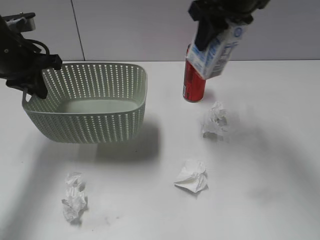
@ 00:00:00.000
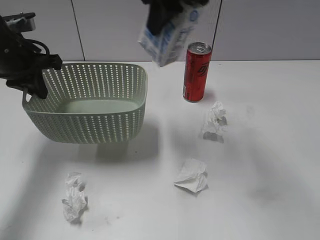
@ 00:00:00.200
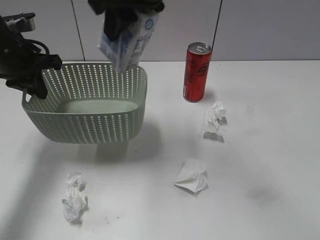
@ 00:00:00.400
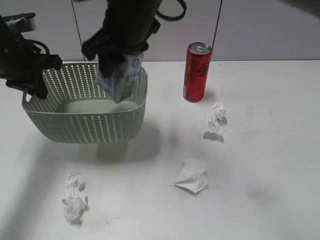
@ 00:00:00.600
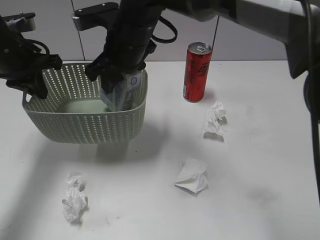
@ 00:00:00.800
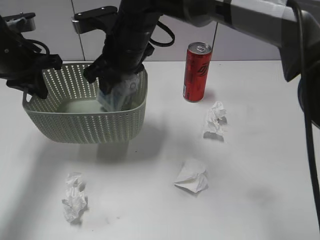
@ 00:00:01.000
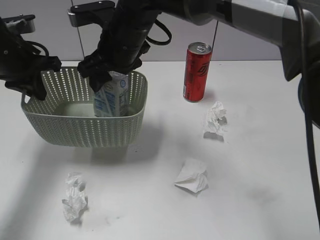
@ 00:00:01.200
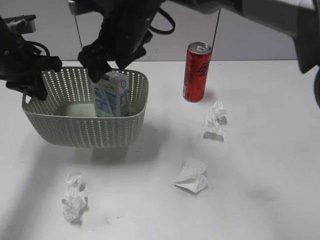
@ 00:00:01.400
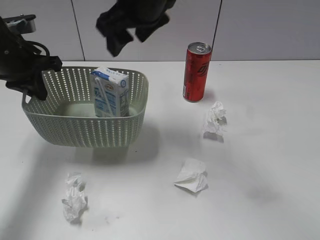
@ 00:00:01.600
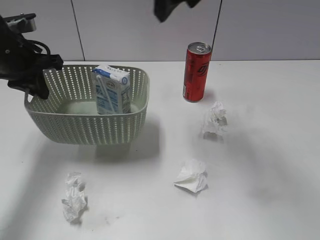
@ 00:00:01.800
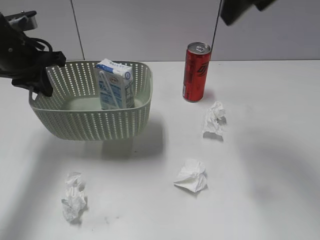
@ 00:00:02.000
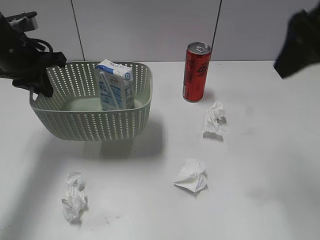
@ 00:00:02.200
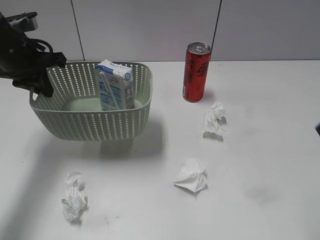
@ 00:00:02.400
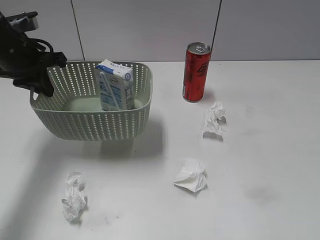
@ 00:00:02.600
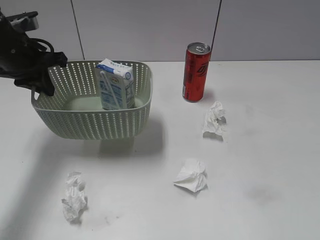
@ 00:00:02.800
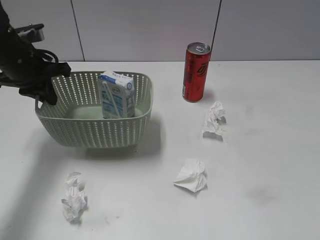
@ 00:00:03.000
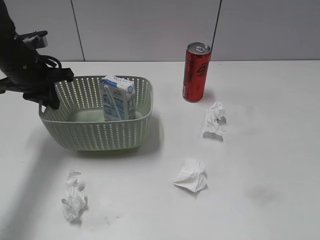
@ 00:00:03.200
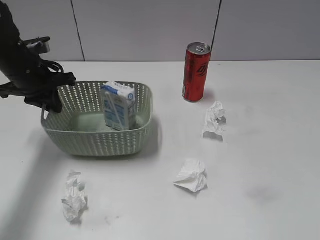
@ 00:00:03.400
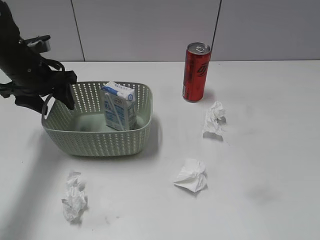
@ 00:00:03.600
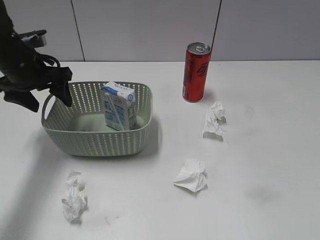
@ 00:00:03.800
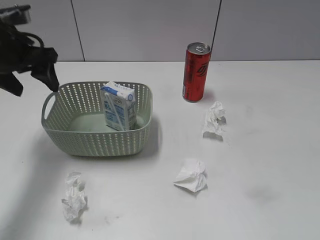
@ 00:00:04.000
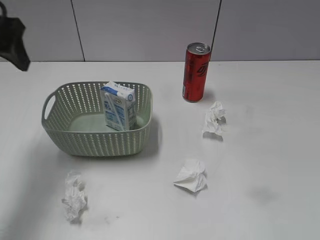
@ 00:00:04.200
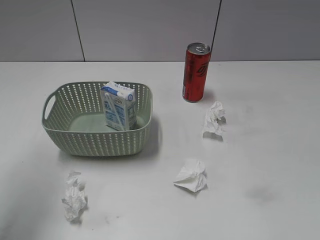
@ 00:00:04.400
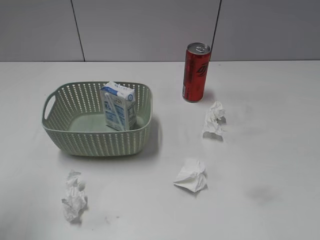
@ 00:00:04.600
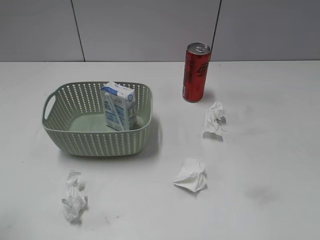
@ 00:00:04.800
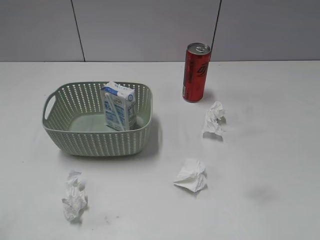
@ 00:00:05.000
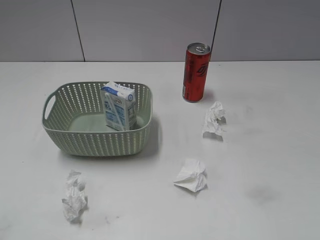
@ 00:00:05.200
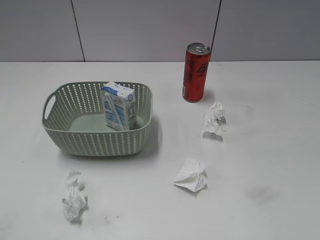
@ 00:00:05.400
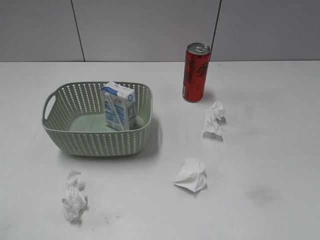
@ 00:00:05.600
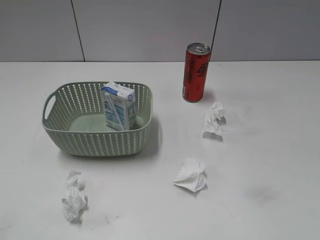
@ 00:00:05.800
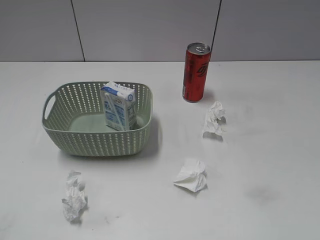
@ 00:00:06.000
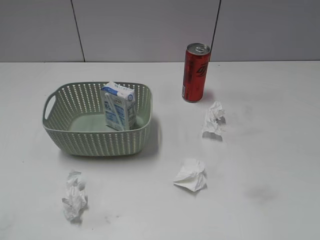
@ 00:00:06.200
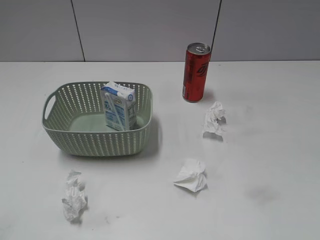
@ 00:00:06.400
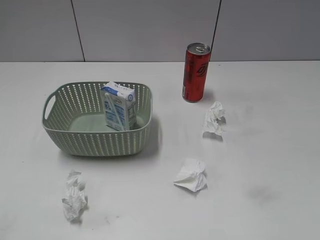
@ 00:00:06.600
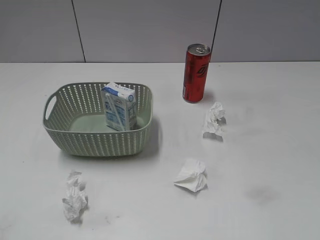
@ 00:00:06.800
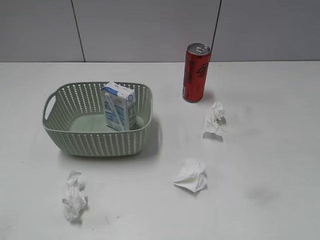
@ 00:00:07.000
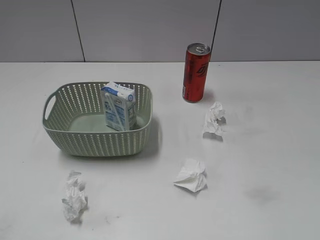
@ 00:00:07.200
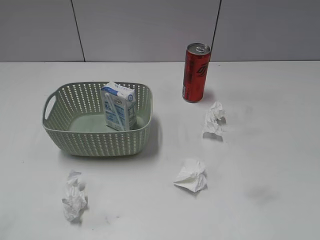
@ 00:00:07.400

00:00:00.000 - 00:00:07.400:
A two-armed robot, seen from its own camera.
Step, 00:00:00.000 - 00:00:01.400: Place the milk in the basket with right gripper.
Step, 00:00:01.600 - 00:00:04.000: Place the basket on the table with left gripper.
00:00:00.000 - 00:00:01.400: The right gripper travels to the left and downward by about 15 cm, and opens.
00:00:01.400 - 00:00:03.000: The right gripper heads to the right and backward, covering about 50 cm.
00:00:03.000 - 00:00:04.400: The left gripper moves upward and backward, roughly 20 cm, and opens its fingers.
00:00:04.400 - 00:00:06.000: The left gripper shifts about 20 cm backward and downward.
